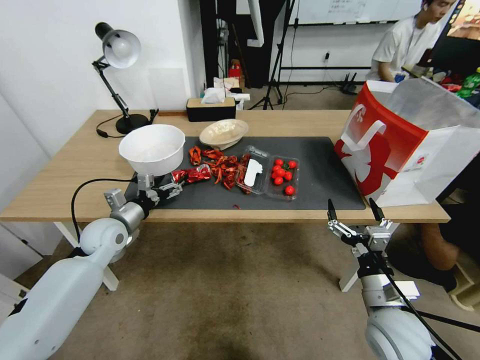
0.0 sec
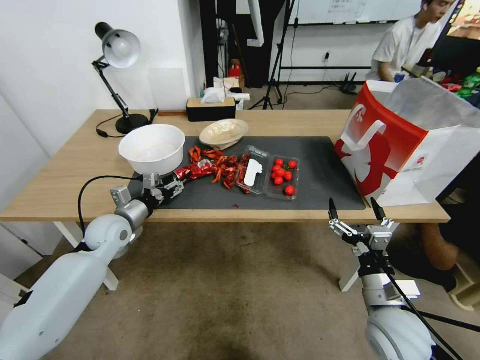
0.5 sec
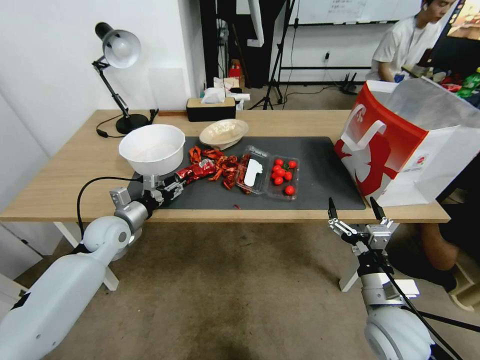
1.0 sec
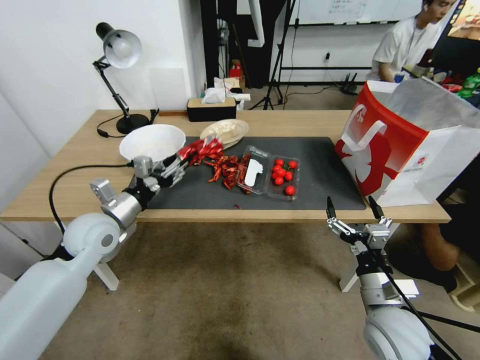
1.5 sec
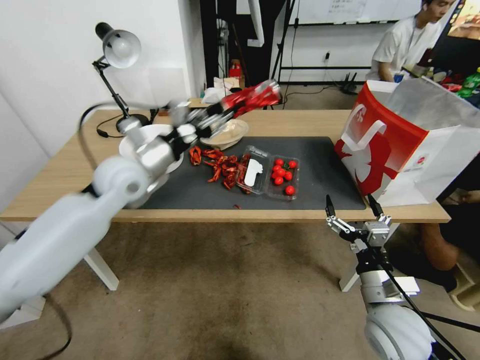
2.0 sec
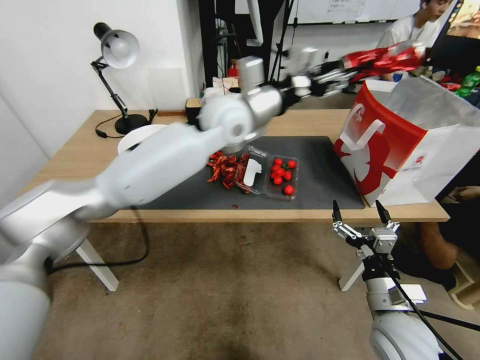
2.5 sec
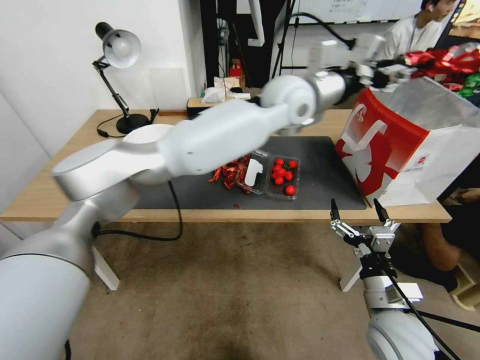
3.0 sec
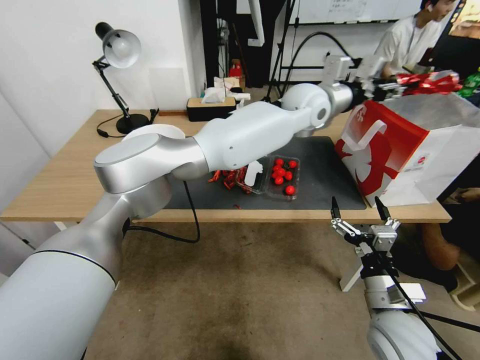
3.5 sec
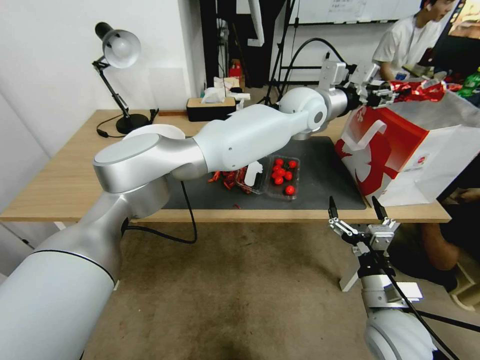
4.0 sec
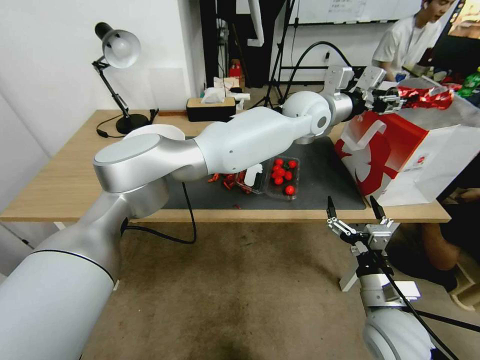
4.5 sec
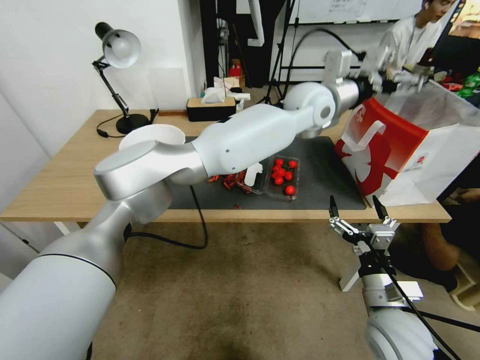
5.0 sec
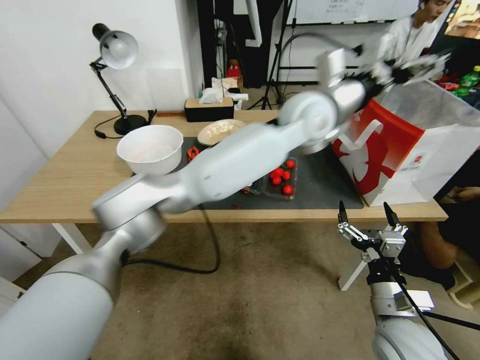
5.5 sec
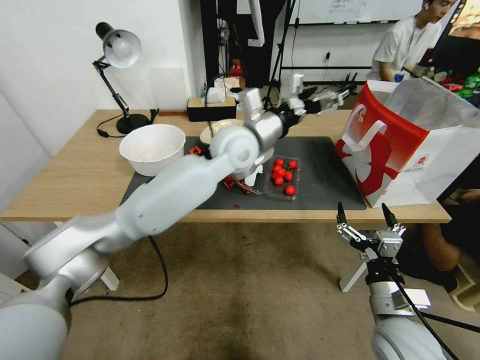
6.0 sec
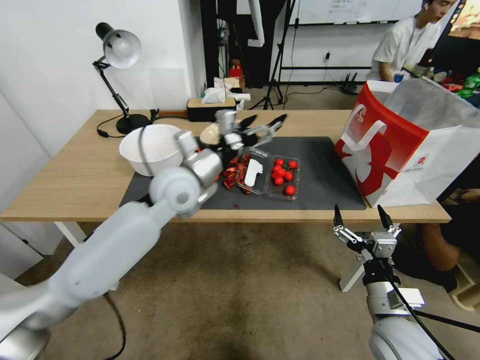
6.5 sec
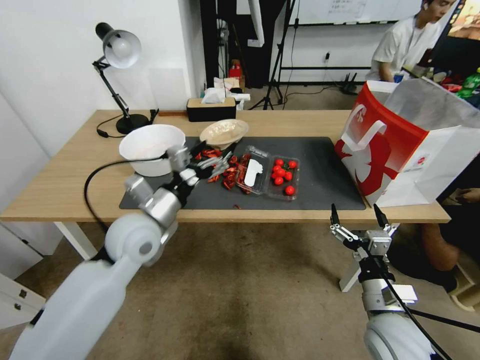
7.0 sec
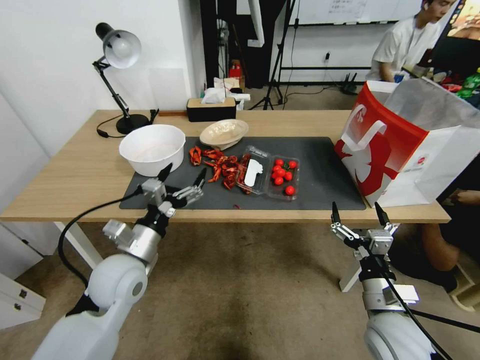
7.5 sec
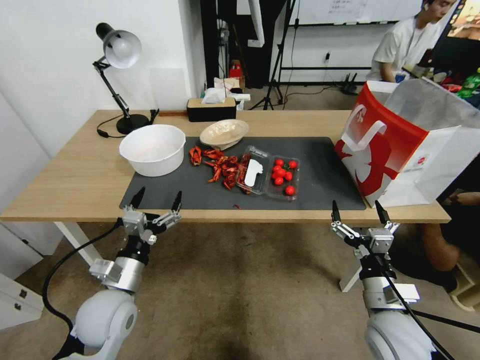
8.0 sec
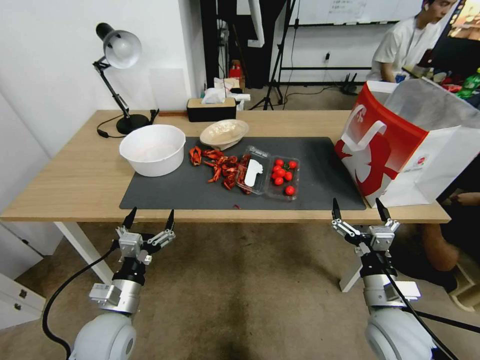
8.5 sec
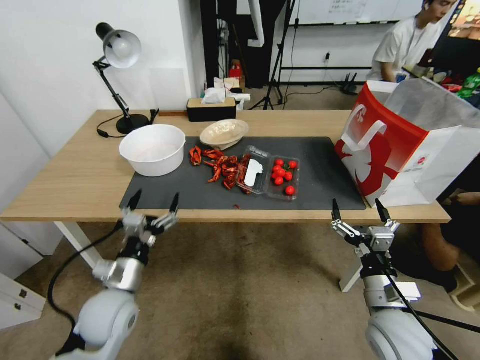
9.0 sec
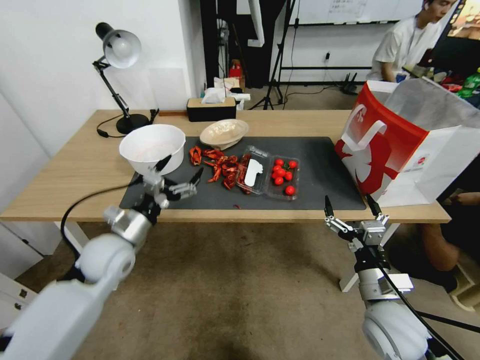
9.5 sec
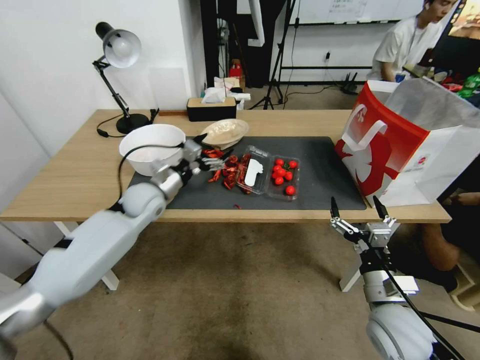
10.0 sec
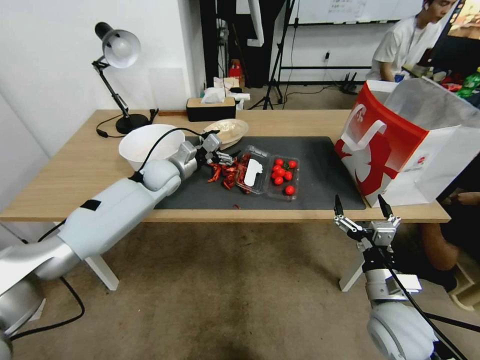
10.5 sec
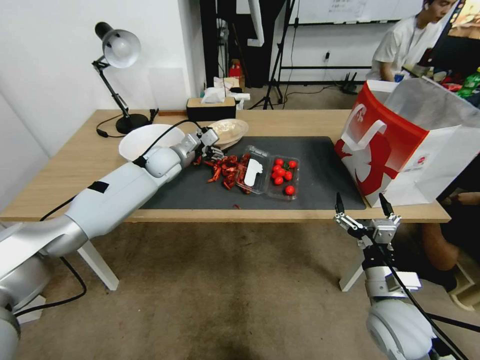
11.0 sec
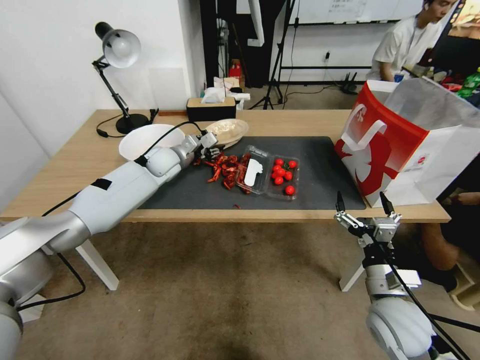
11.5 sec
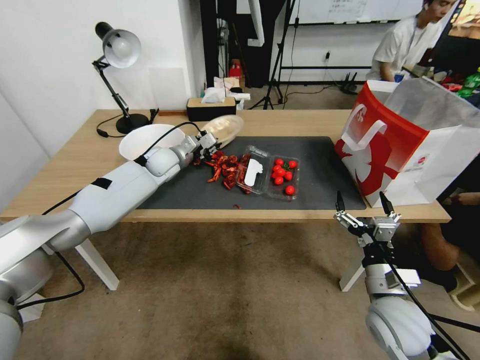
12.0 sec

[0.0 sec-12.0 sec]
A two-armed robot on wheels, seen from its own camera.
0.0 sec to 2.0 sec: The left gripper shifts some 20 cm upward and to the right, and closes its fingers.
2.0 sec to 4.0 sec: The left gripper travels to the right by approximately 35 cm.
4.0 sec to 6.0 sec: The left gripper goes some 15 cm to the left and backward, and opens up.
6.0 sec to 8.0 sec: The left gripper goes approximately 40 cm to the left, backward and downward.
8.0 sec to 10.0 sec: The left gripper travels forward by about 20 cm.
10.0 sec to 12.0 sec: The left gripper shifts approximately 15 cm forward, and closes.

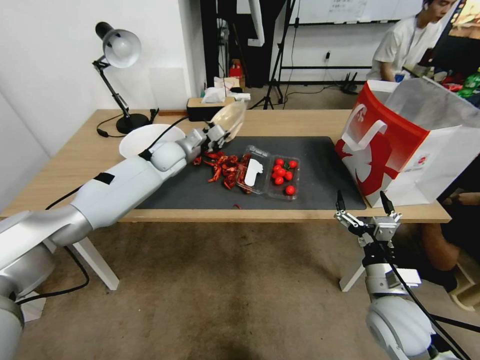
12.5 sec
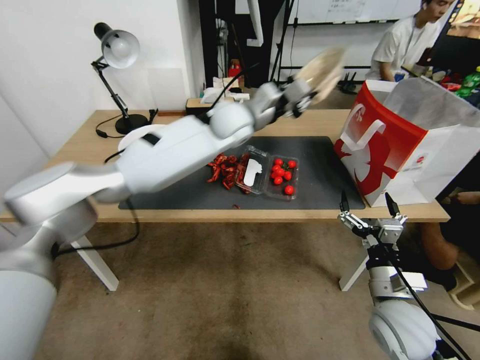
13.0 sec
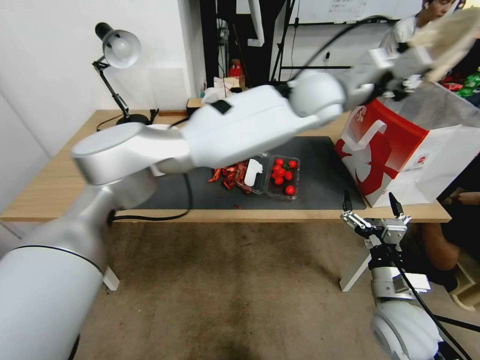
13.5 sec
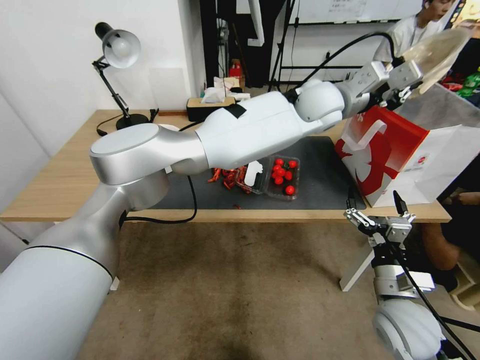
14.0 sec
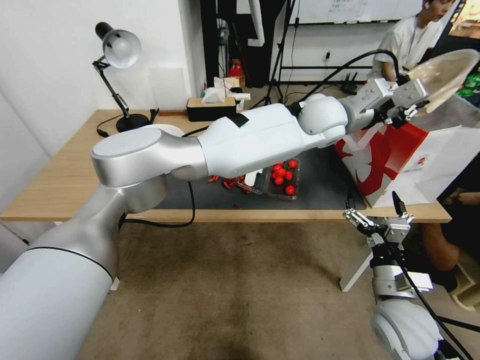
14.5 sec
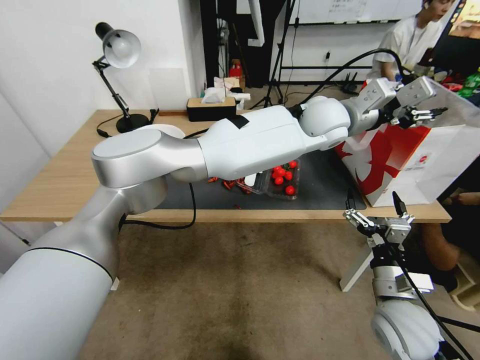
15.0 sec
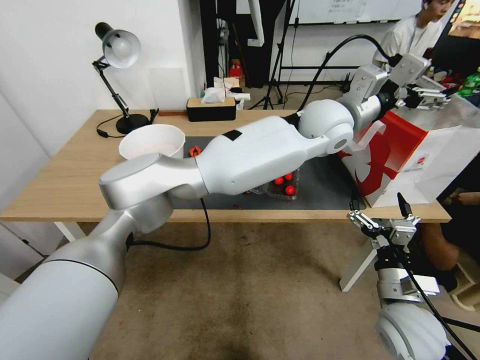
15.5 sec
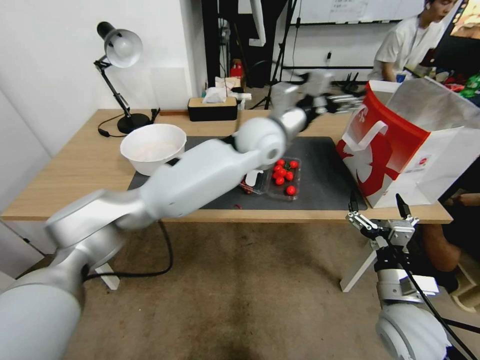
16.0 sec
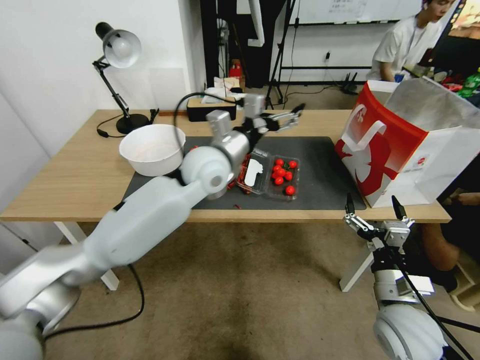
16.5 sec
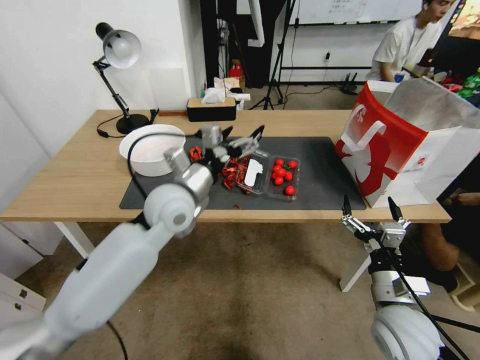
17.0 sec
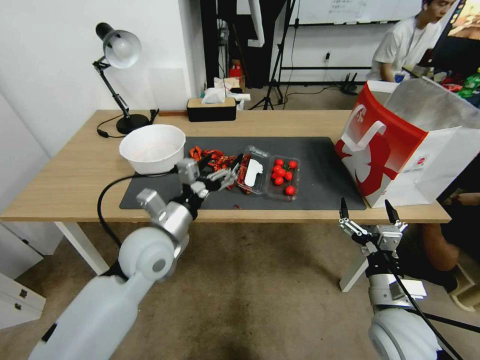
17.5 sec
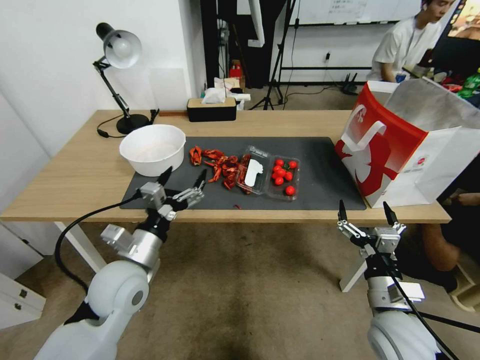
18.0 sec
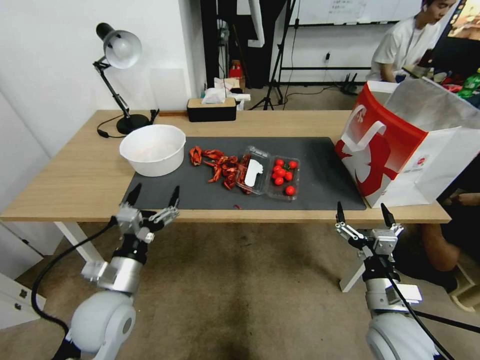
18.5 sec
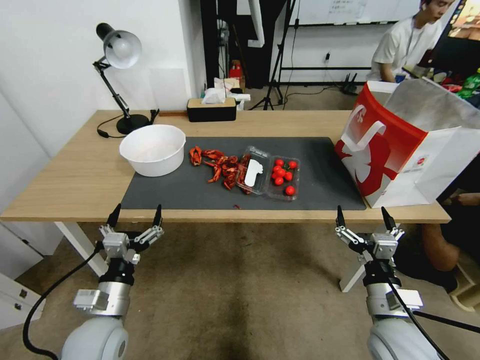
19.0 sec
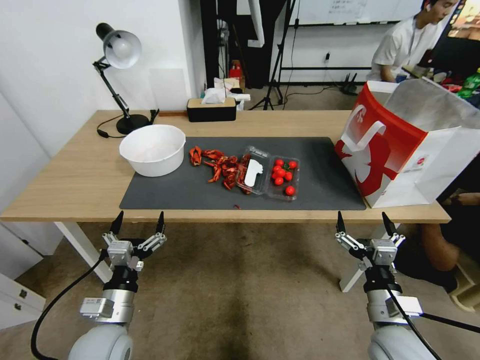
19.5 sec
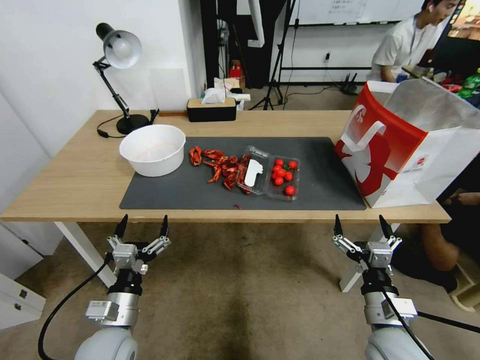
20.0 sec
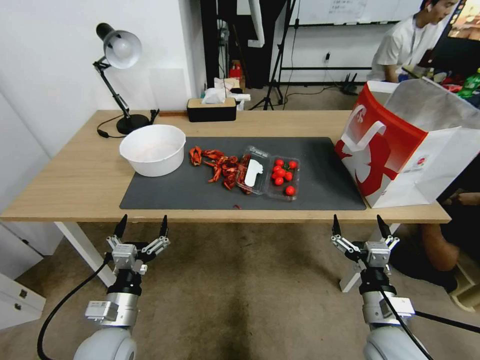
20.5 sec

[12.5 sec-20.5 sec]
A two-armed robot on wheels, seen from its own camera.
12.5 sec to 14.5 sec: The left gripper is displaced to the right and upward by roughly 40 cm.
14.5 sec to 16.5 sec: The left gripper moves to the left, some 20 cm, and opens its fingers.
16.5 sec to 18.5 sec: The left gripper travels backward, to the left and downward by roughly 35 cm.
18.5 sec to 20.5 sec: The left gripper travels downward by approximately 5 cm.

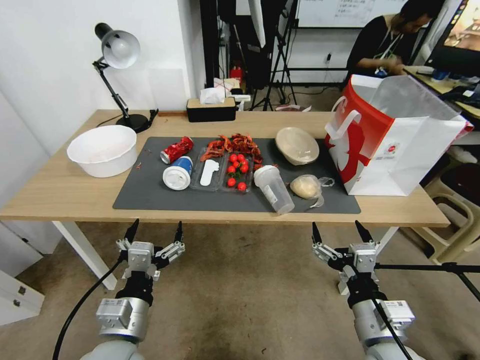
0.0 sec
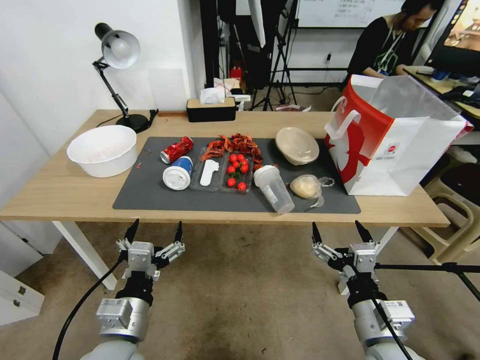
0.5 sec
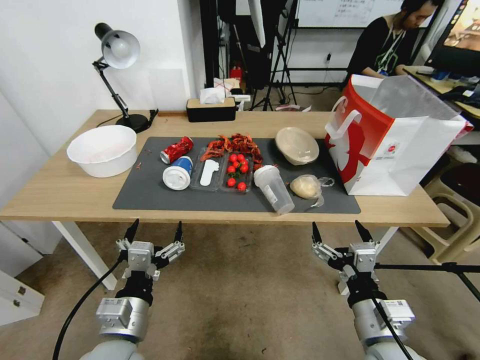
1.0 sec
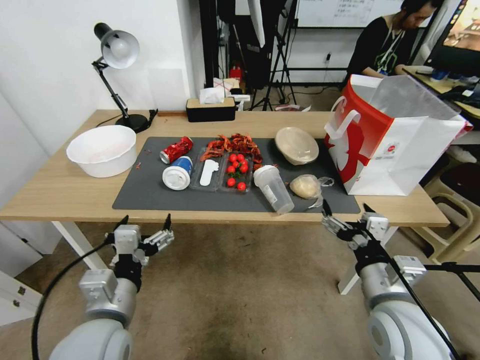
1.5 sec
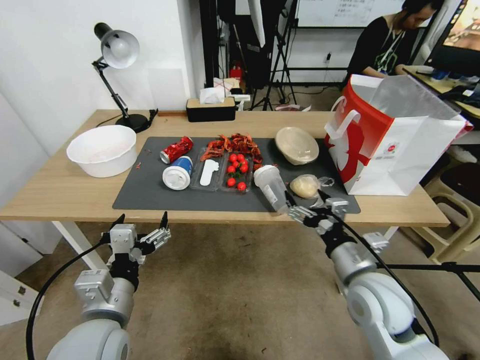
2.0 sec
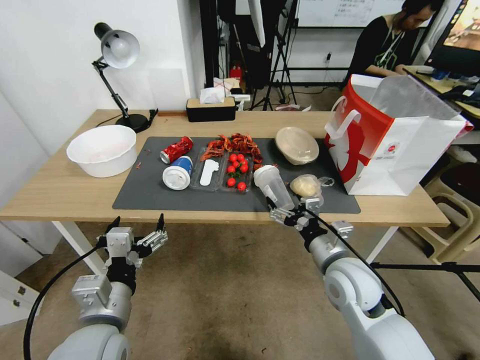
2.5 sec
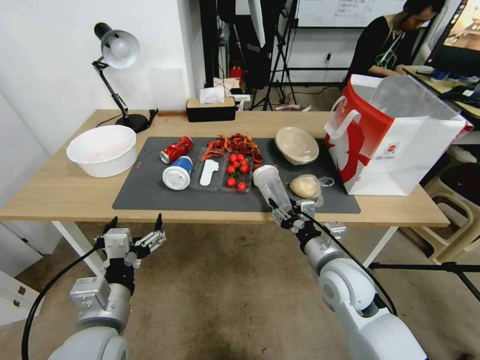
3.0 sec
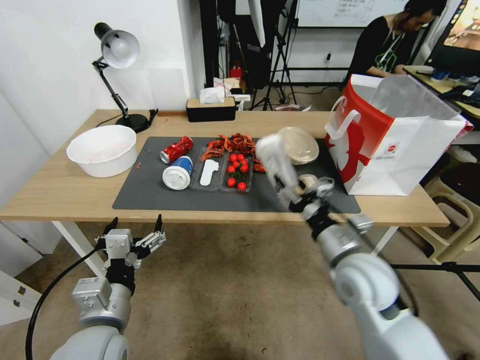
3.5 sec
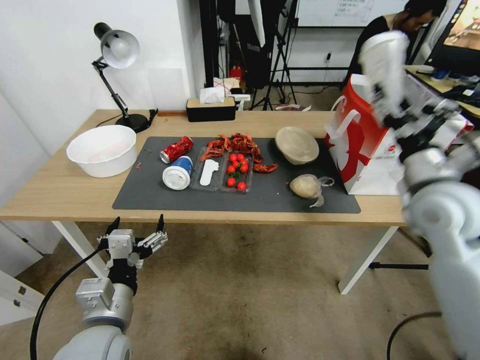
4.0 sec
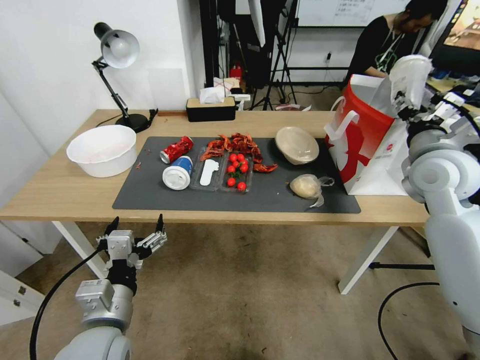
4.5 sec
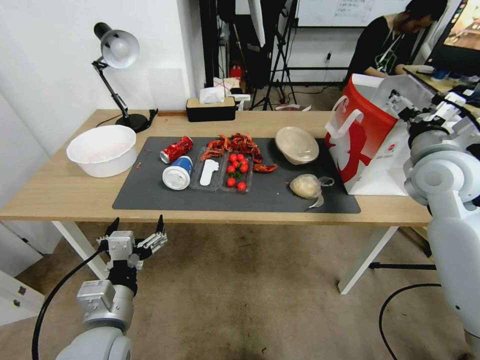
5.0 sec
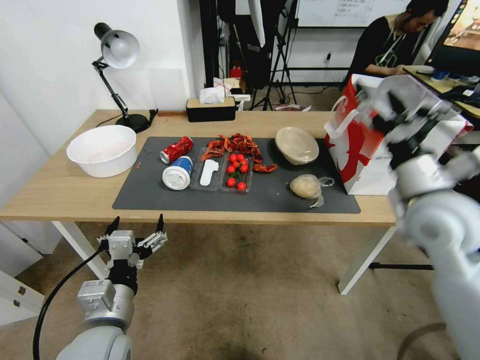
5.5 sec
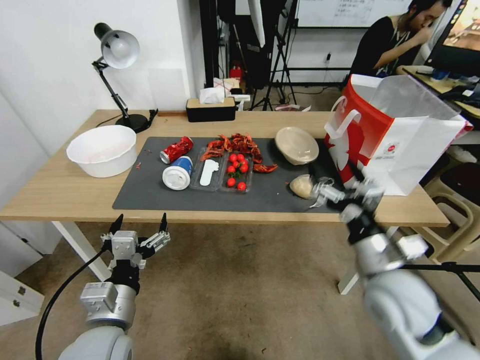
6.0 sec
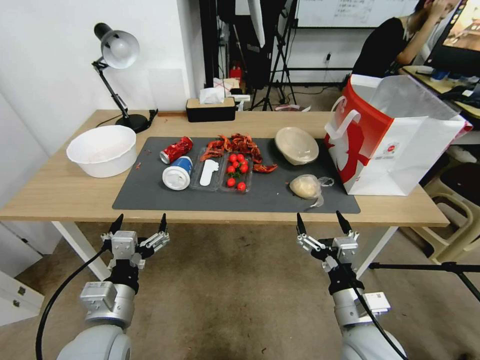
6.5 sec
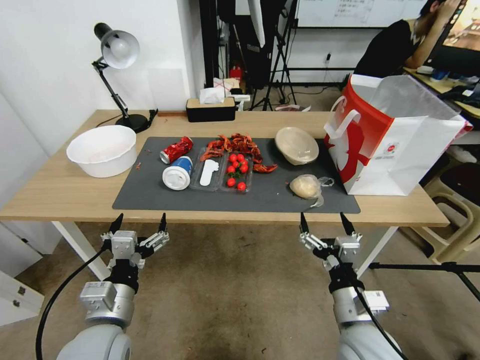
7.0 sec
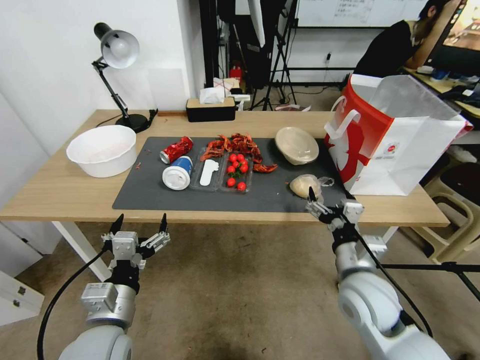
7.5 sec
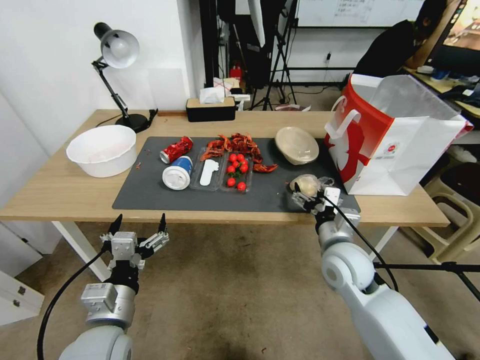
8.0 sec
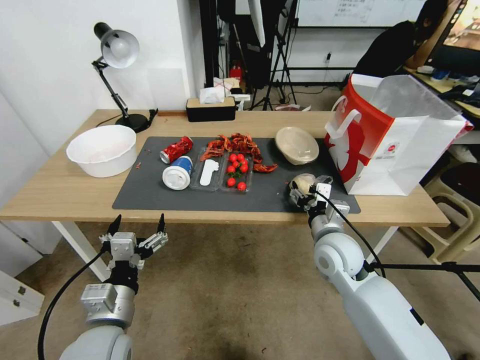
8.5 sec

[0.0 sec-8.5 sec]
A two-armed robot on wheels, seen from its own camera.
2.0 sec to 4.0 sec: The right gripper shifts roughly 20 cm upward, to the right and forward, and closes its fingers.
4.0 sec to 6.5 sec: The right gripper moves downward, backward and to the left, some 25 cm, and opens its fingers.
6.5 sec to 8.5 sec: The right gripper shifts approximately 15 cm forward.
